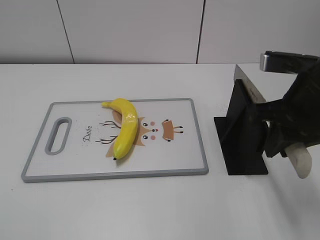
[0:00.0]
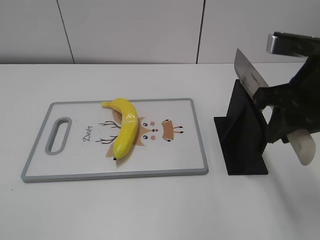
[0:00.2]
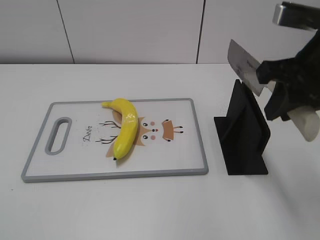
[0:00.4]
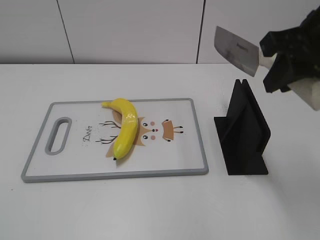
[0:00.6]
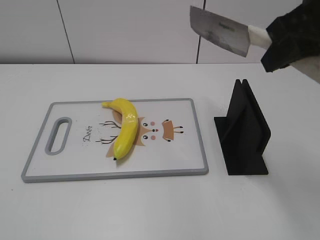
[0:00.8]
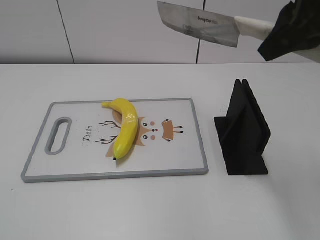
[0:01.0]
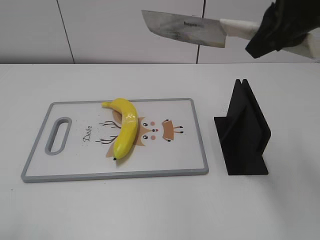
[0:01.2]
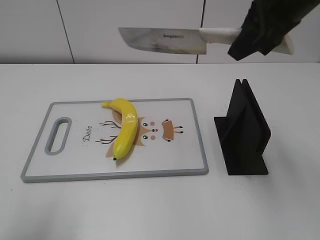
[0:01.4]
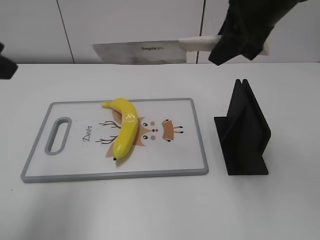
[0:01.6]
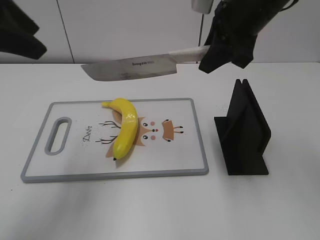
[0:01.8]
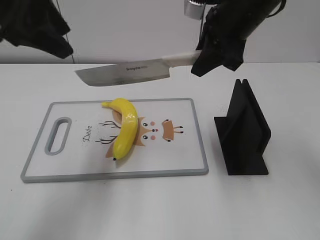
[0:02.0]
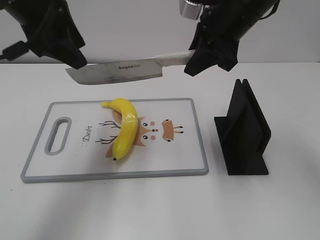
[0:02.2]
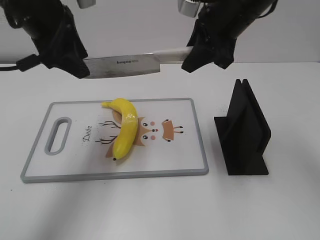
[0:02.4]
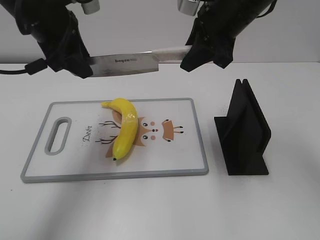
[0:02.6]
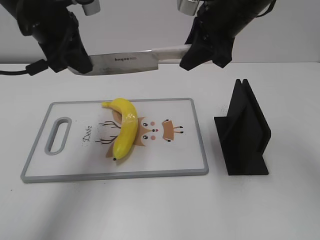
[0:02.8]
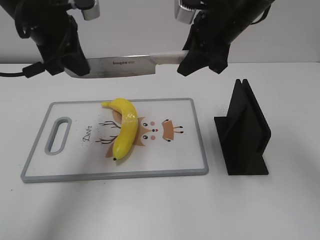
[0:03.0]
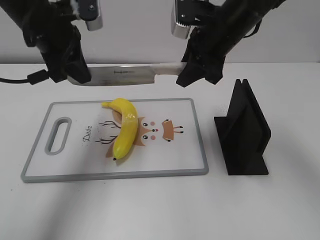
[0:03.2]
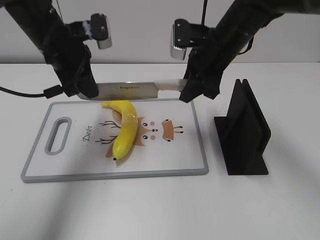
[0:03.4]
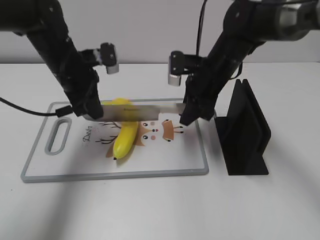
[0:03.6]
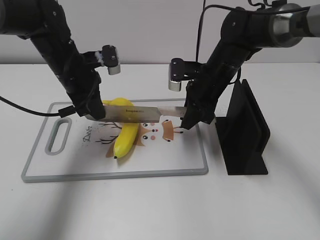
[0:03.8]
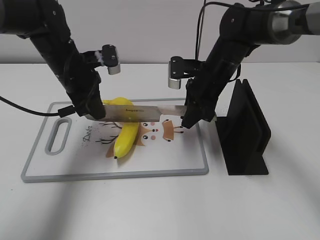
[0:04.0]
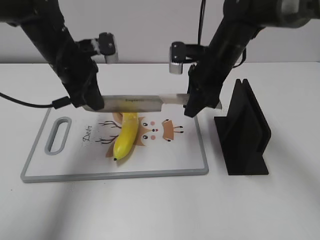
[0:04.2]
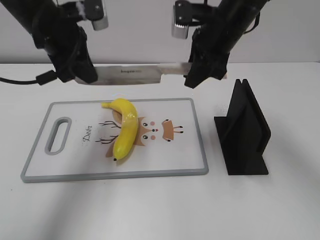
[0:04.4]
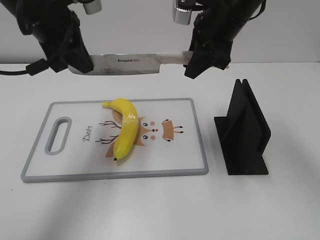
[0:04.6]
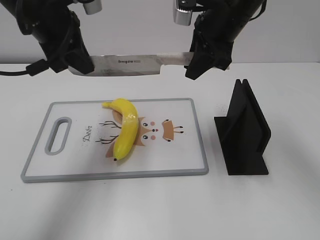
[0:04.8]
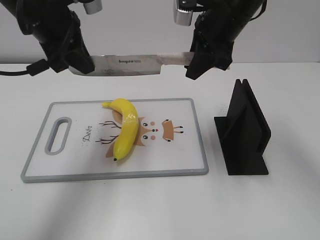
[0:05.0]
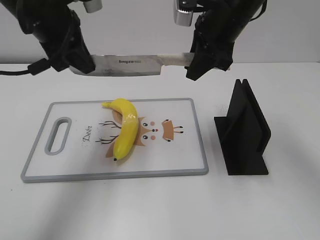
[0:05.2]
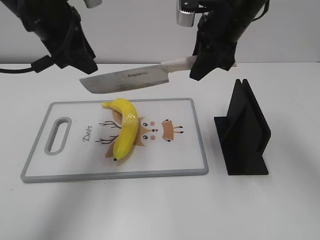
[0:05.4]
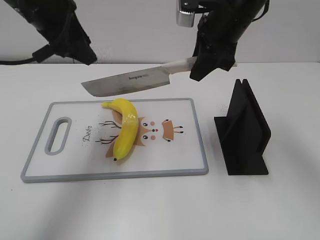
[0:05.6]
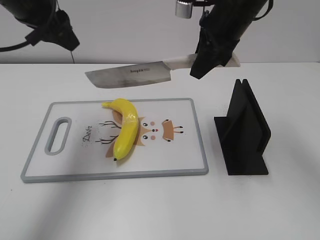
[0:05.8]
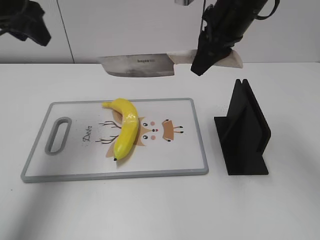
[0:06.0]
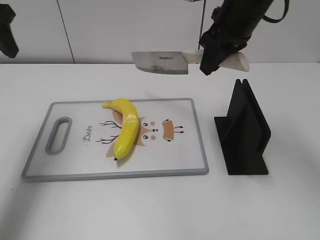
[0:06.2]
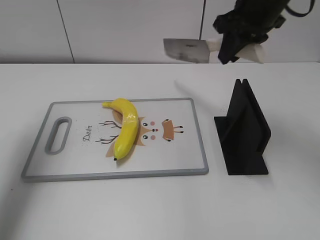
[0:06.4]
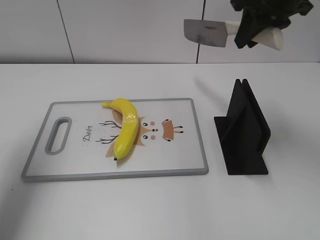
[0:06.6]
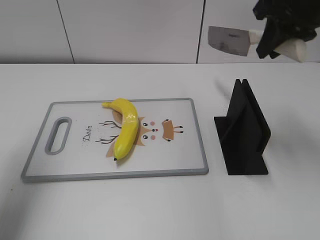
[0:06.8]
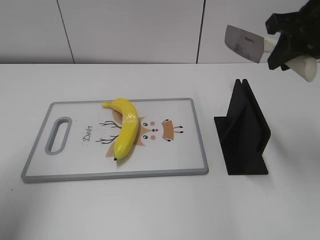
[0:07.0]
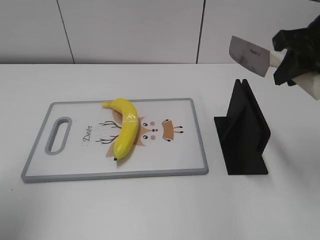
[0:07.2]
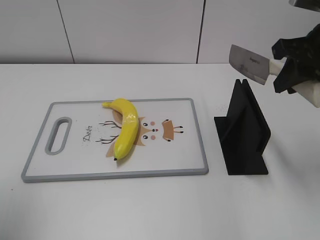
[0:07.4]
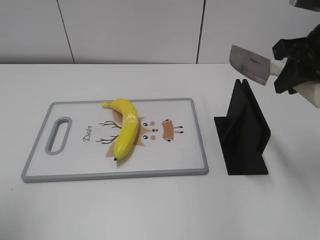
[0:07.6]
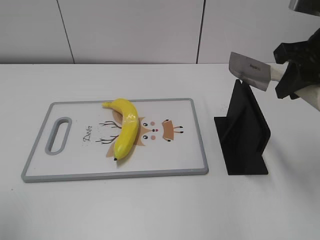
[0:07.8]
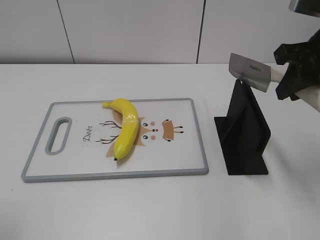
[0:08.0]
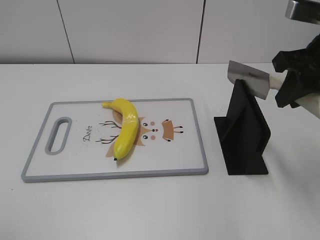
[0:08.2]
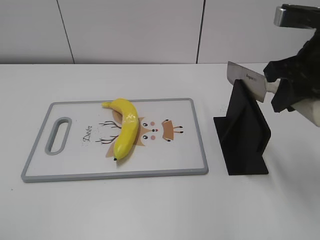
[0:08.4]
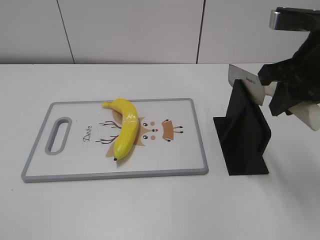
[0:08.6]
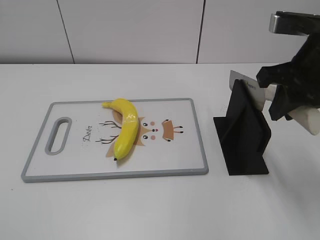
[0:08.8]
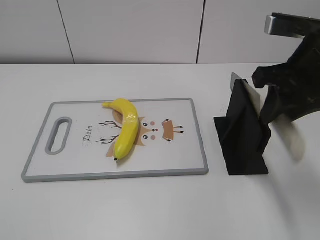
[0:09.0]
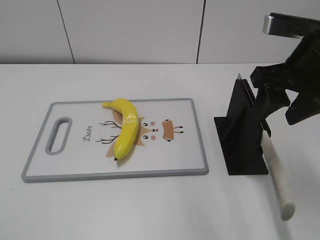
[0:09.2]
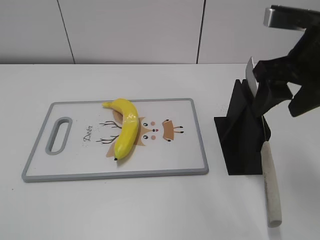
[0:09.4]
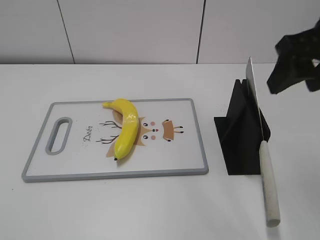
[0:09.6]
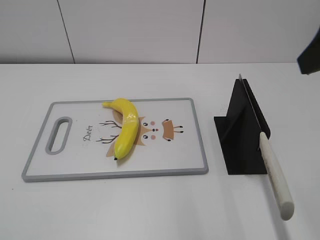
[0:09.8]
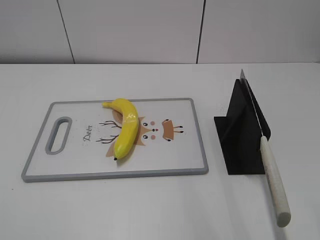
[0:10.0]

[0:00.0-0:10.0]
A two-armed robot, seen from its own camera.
Task of the whole recording: cut plastic banana.
Step, 0:00.8 to 0:04.8: Hold the blade with your left hand.
Step, 0:05.0 to 0:06.0: Cut the banana with your left hand.
Step, 0:06.2 to 0:07.8: Secure the blade with your left hand.
0:00.0 to 0:01.4: The right gripper is displaced upward and forward by approximately 10 cm. Meanwhile the left gripper moves forward and upward, some 15 cm.
0:01.4 to 0:02.8: The left gripper travels forward and to the right by roughly 25 cm, and closes up; the right gripper heads forward and downward, covering some 10 cm.
0:02.8 to 0:04.2: Both grippers travel together downward, roughly 10 cm.
0:04.2 to 0:05.8: Both grippers move upward, some 10 cm. The left gripper opens up.
0:05.8 to 0:07.2: The left gripper moves backward and to the left, roughly 20 cm. The right gripper is displaced to the right and backward by about 15 cm.
0:07.2 to 0:08.6: The left gripper heads backward and downward, covering roughly 20 cm.
0:08.6 to 0:10.0: The right gripper moves backward and upward, some 15 cm, and opens its fingers.

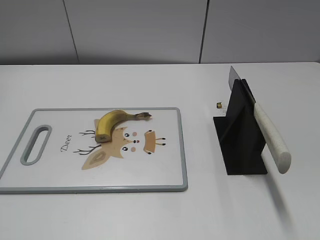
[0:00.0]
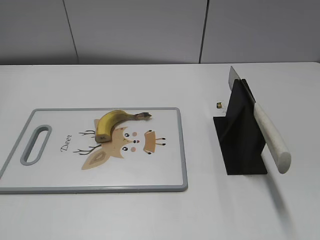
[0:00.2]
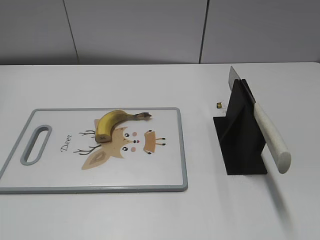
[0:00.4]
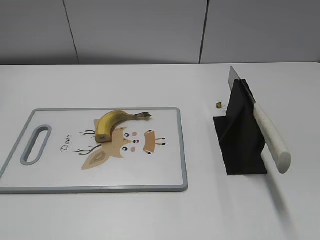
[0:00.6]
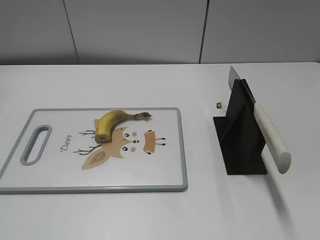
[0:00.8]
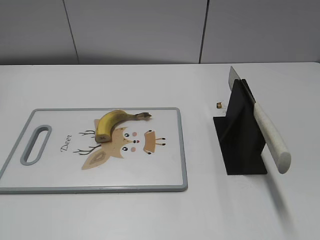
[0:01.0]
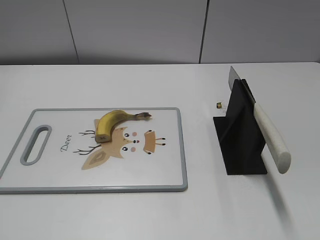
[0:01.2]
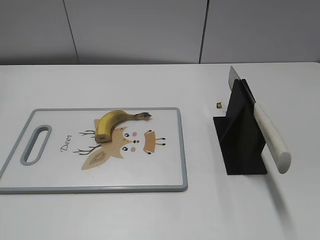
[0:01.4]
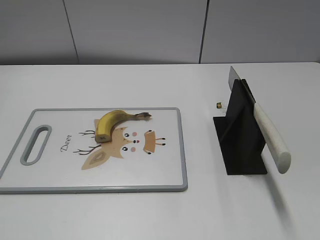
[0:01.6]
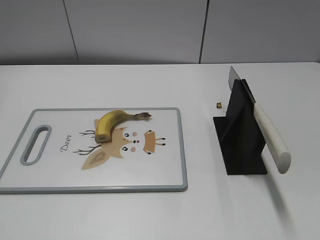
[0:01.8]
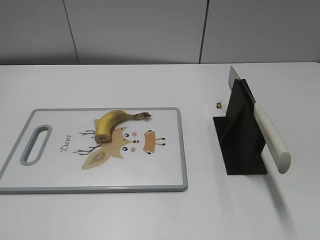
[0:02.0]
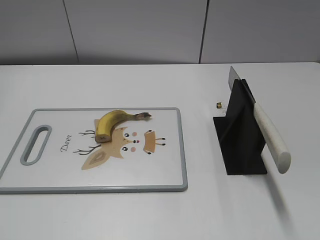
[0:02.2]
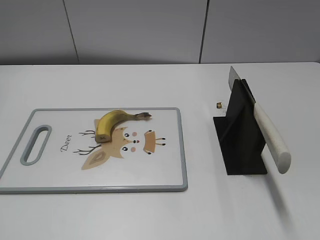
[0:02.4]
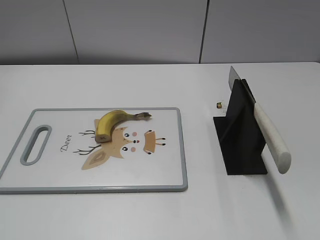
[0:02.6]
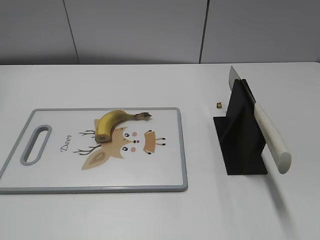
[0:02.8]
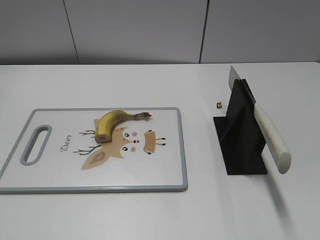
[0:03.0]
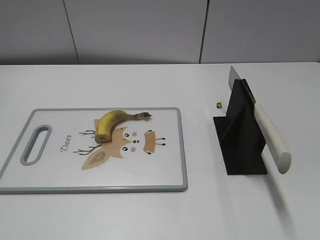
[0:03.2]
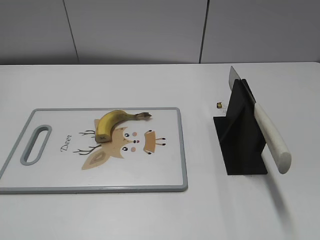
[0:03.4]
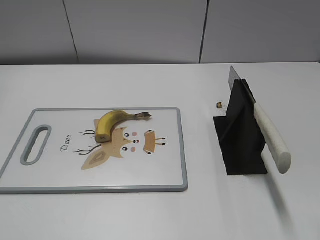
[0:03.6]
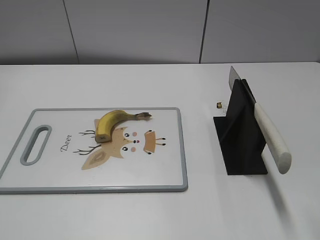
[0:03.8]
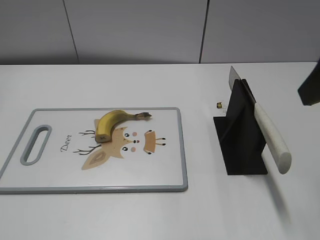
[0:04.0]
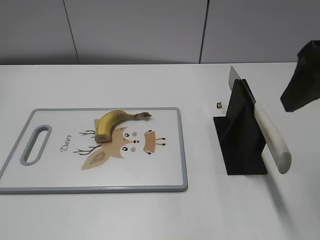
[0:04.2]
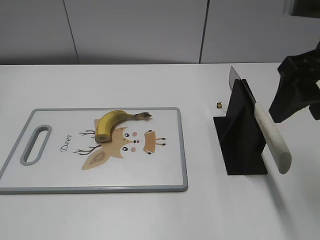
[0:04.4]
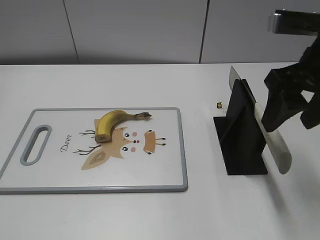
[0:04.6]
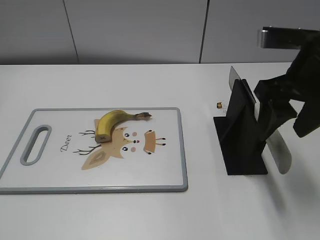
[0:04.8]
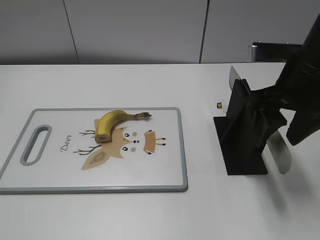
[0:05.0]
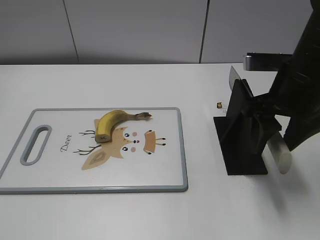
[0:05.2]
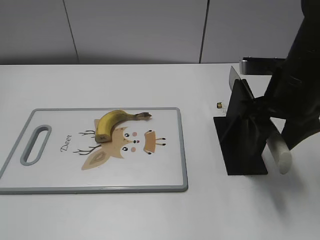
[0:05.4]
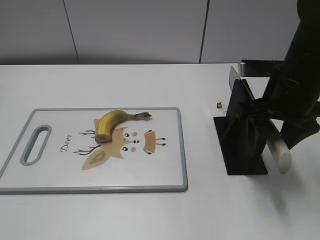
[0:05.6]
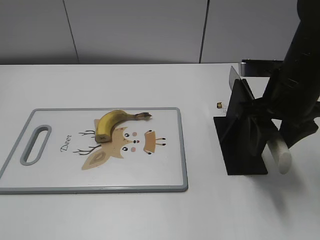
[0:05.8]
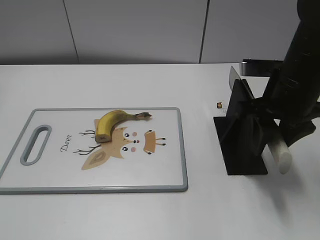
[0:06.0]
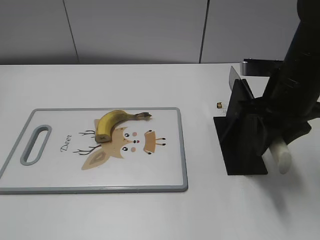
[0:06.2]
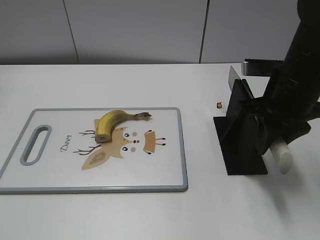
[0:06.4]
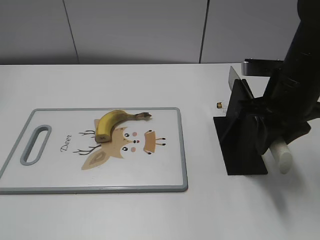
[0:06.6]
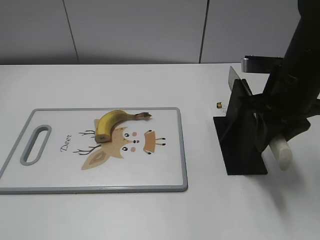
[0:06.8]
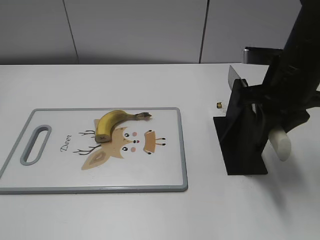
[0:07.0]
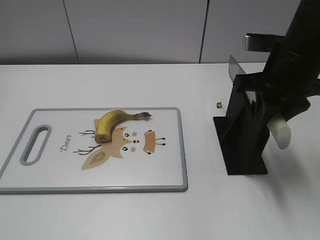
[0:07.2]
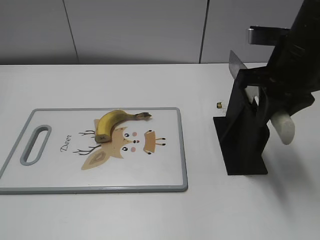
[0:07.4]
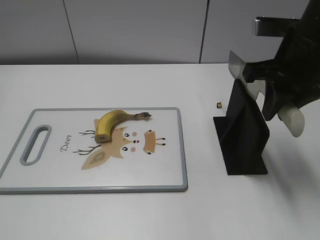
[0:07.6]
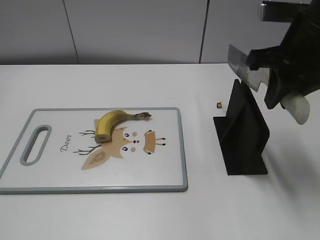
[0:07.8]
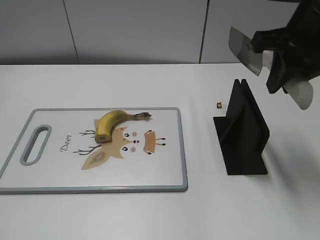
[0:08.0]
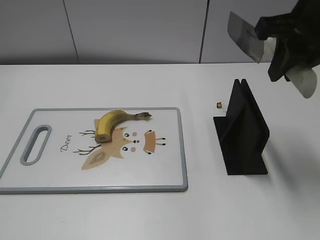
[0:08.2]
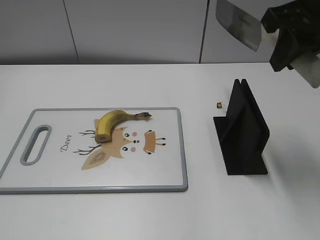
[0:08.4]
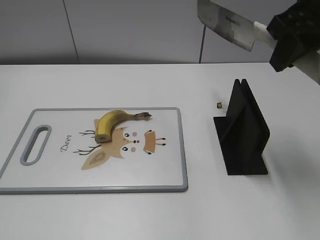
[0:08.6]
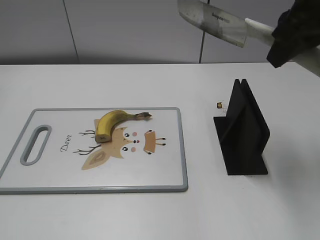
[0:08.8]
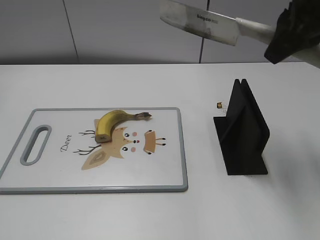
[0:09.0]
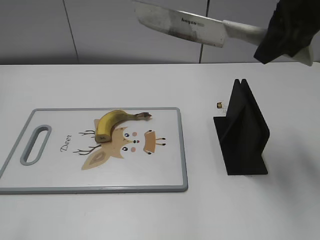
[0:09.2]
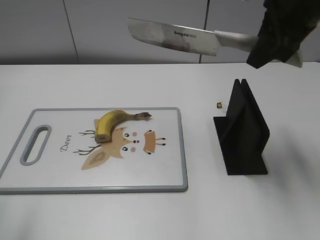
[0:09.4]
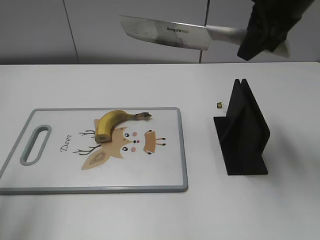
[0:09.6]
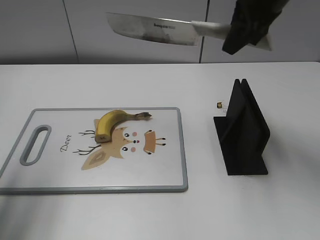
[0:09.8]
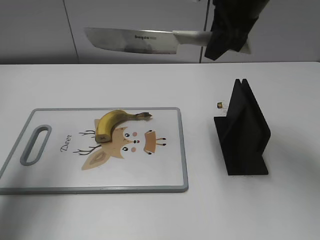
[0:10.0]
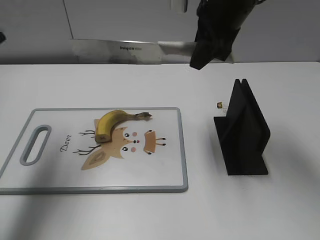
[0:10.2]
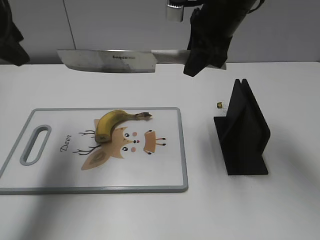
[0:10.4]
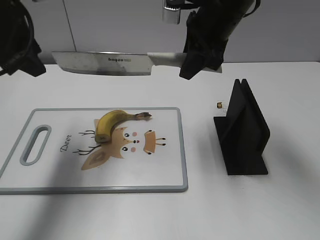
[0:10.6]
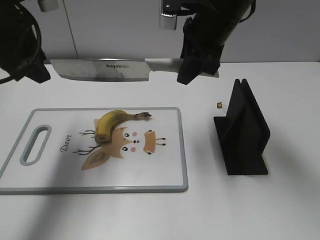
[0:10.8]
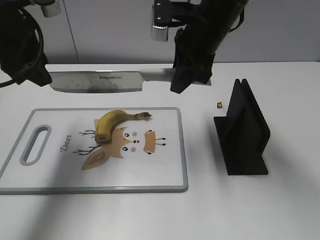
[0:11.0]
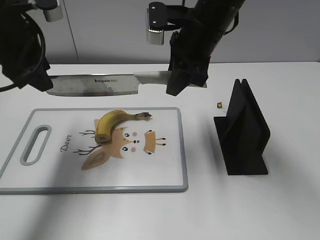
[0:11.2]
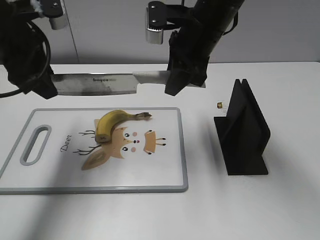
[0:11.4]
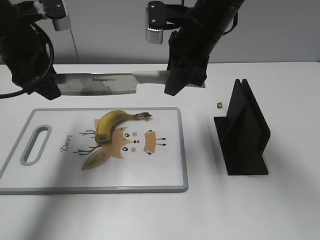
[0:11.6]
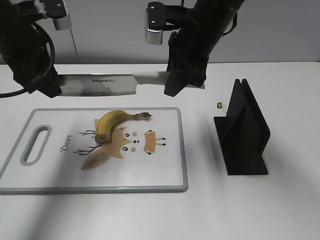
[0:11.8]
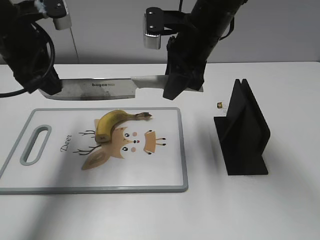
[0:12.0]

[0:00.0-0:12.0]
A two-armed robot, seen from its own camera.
Task of the whole recording: cut banana.
Step, 0:00.0 to 0:08.4: Grab the knife handle with your right hand.
0:03.0 to 0:04.4: The right gripper goes approximately 15 cm forward and to the left.
0:04.4 to 0:06.0: The right gripper heads downward and forward, covering roughly 10 cm, and closes.
0:06.0 to 0:07.6: The right gripper goes about 5 cm upward, and closes up.
0:07.6 to 0:09.0: The right gripper shifts about 10 cm upward.
0:09.0 to 0:10.4: The right gripper moves to the left, forward and downward, about 15 cm. The left gripper goes roughly 30 cm forward.
0:10.4 to 0:12.0: The left gripper travels downward by approximately 5 cm, and closes. The right gripper ends up some 5 cm from where it was.
